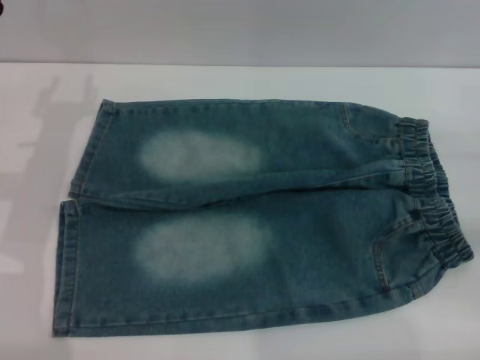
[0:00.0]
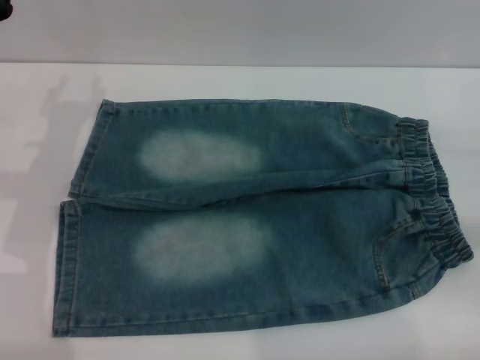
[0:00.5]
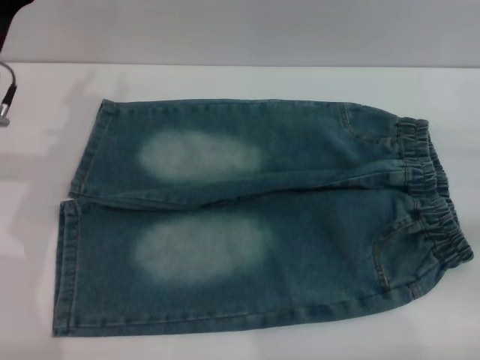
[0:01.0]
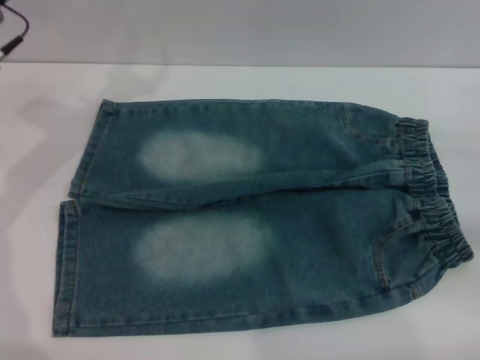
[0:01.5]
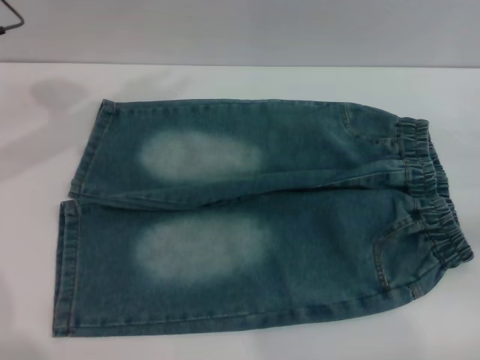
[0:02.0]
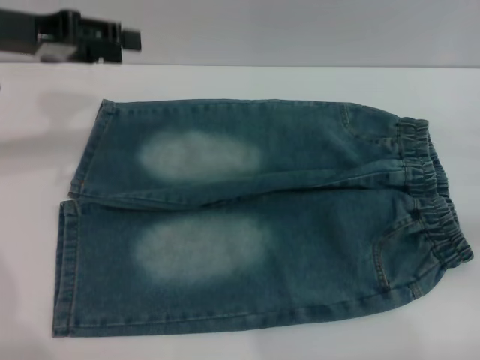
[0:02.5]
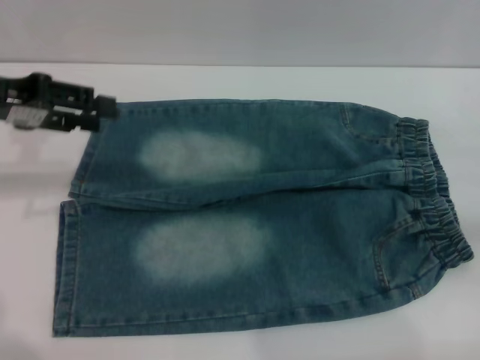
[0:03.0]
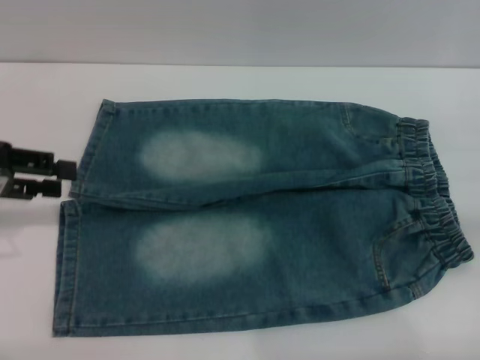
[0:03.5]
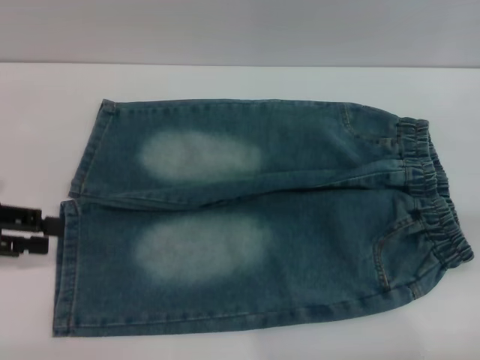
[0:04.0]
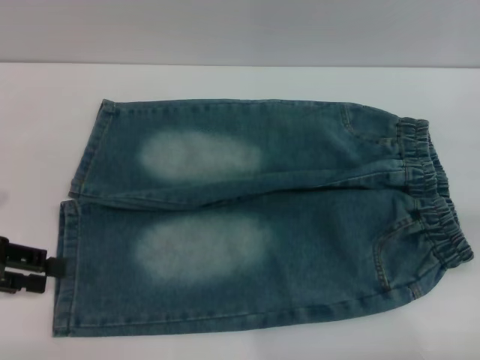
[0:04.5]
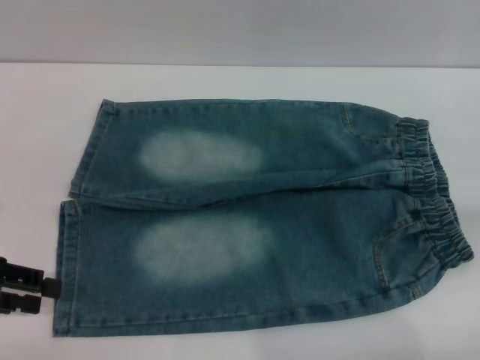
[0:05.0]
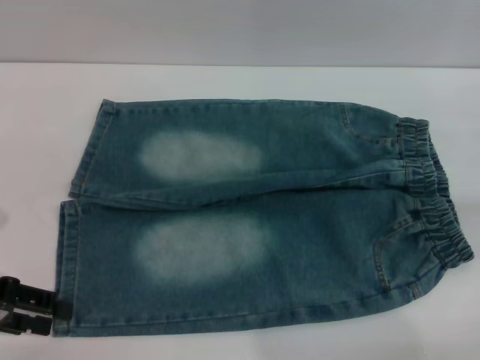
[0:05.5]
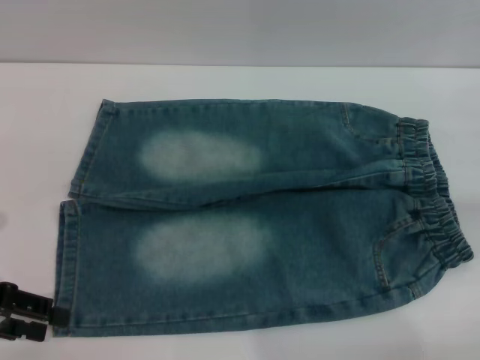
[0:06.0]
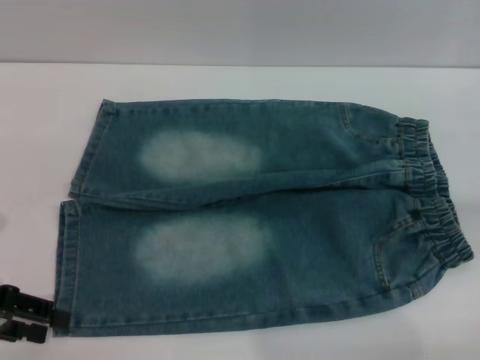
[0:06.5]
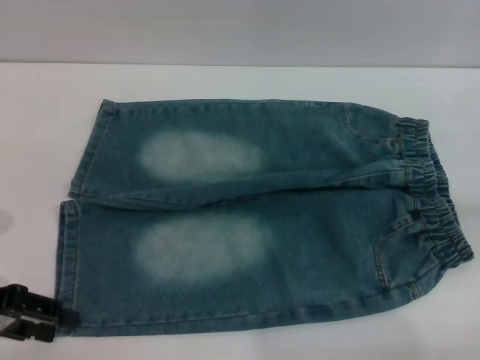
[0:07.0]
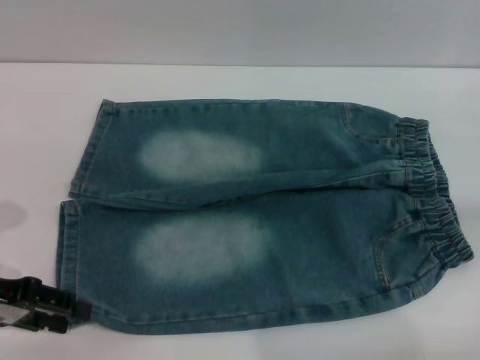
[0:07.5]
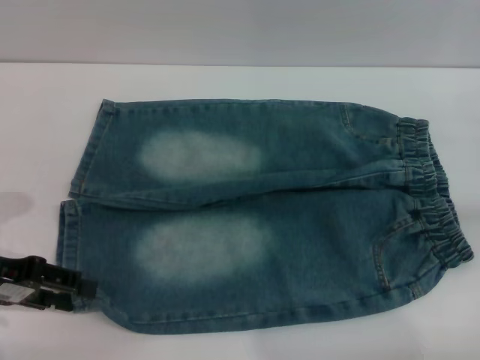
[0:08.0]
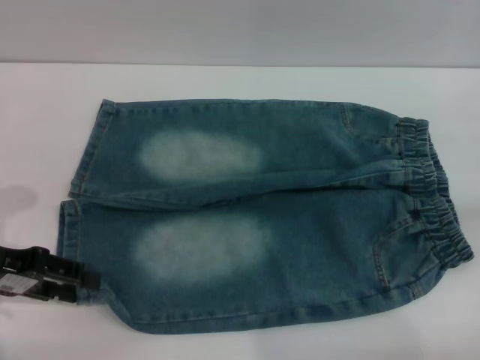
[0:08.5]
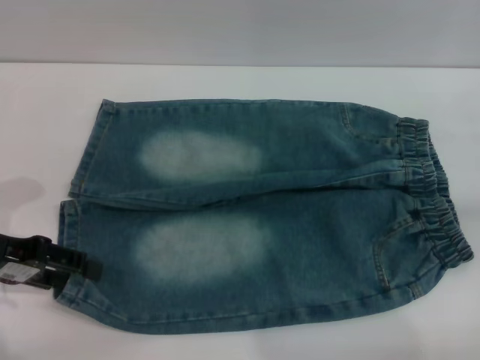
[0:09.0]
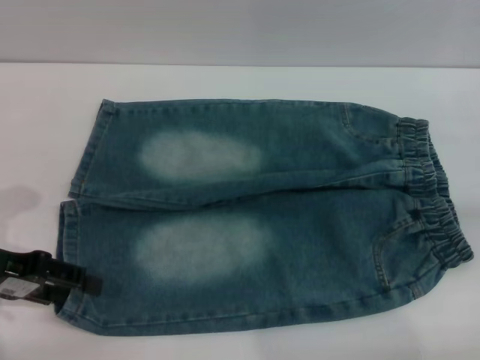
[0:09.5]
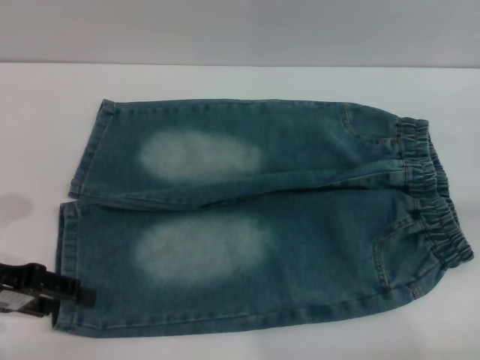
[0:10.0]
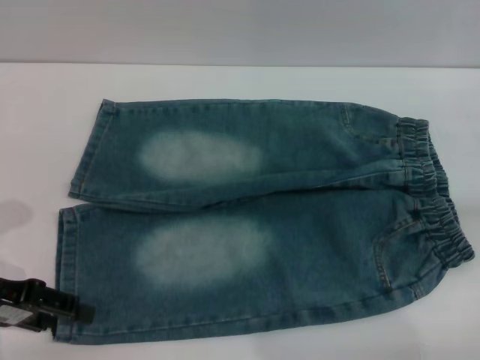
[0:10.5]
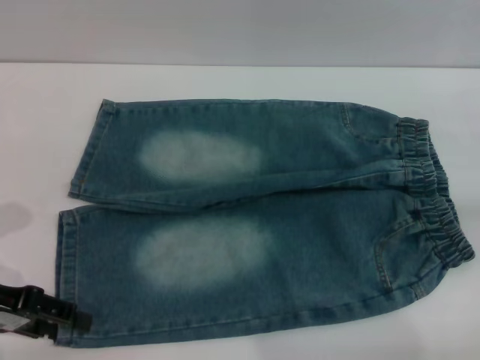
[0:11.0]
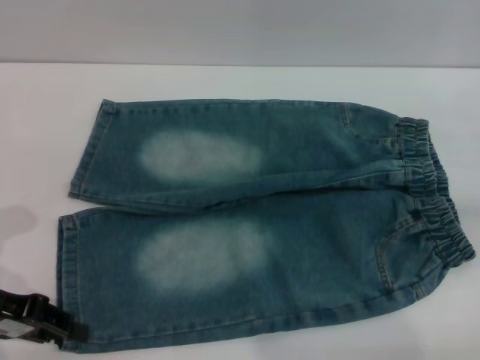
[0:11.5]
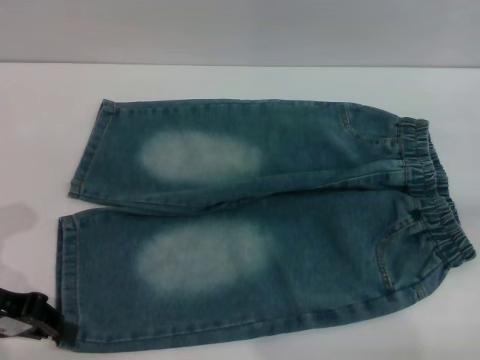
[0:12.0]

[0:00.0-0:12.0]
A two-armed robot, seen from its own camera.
0:02.0 to 0:04.0: The left gripper moves backward, to the left and downward, about 20 cm.
0:04.0 to 0:06.0: The left gripper changes place by approximately 5 cm.
0:06.0 to 0:10.0: There are only small adjustments of the grippers.
0:10.0 to 0:12.0: The left gripper closes up.

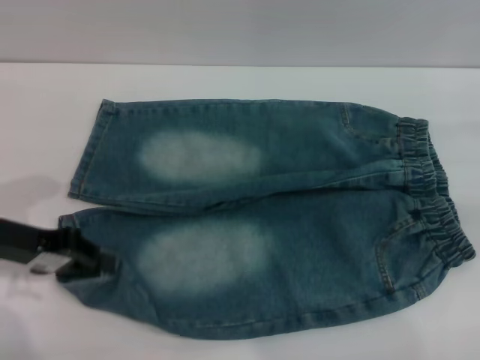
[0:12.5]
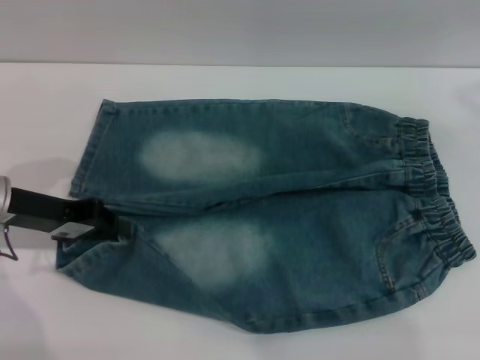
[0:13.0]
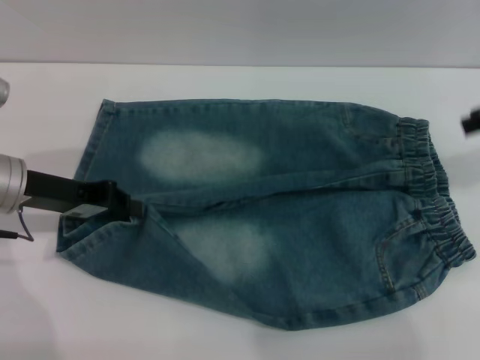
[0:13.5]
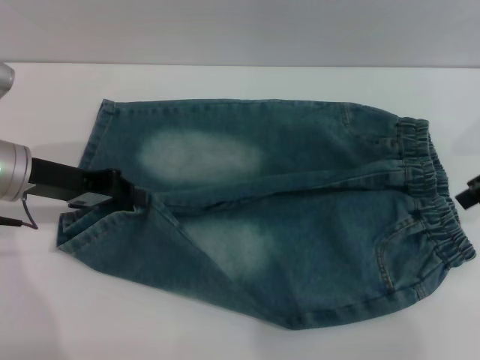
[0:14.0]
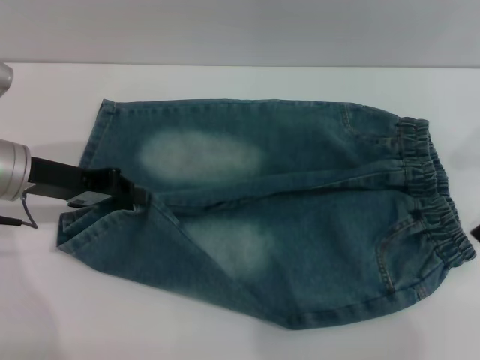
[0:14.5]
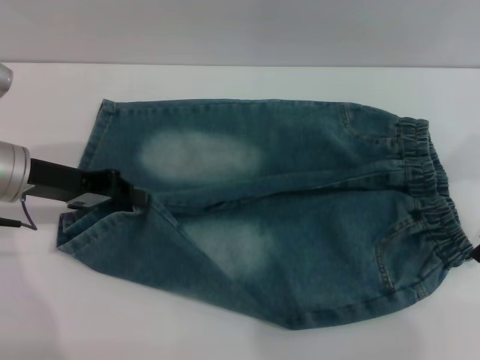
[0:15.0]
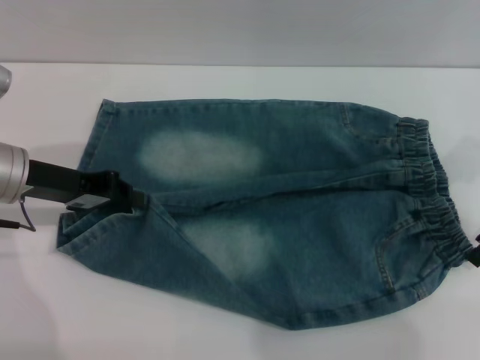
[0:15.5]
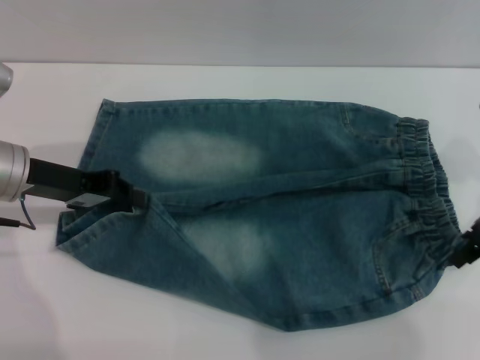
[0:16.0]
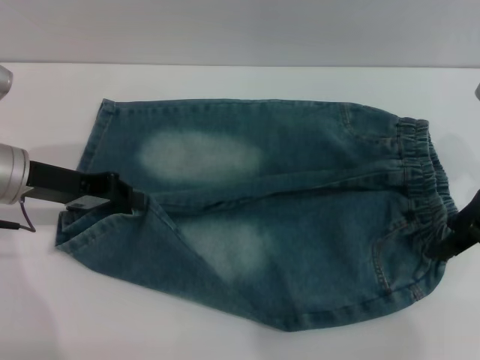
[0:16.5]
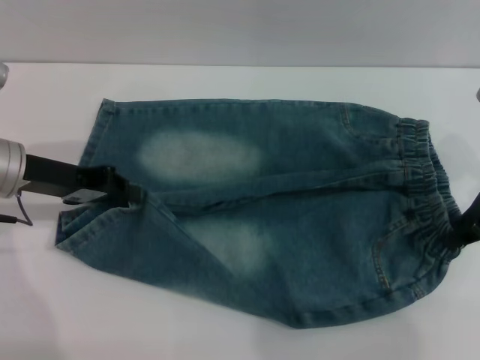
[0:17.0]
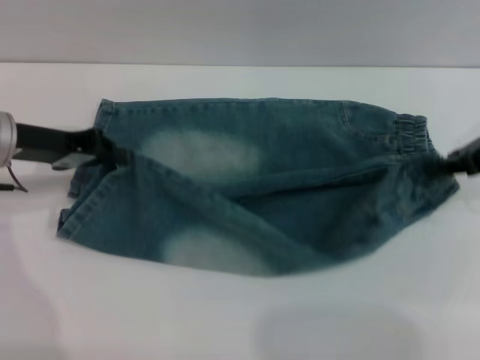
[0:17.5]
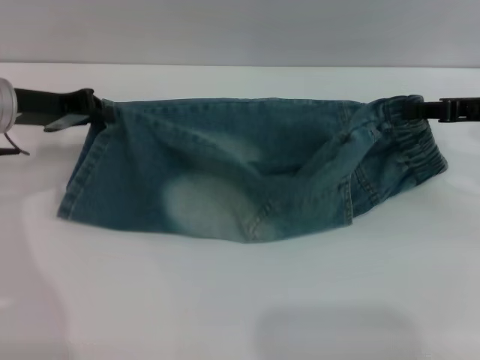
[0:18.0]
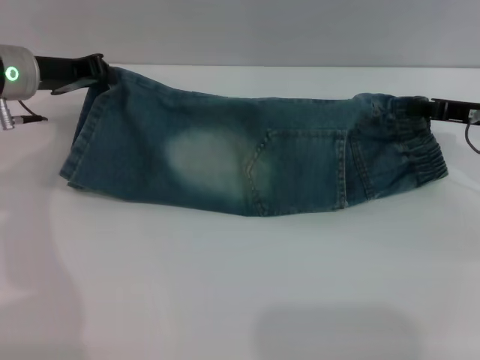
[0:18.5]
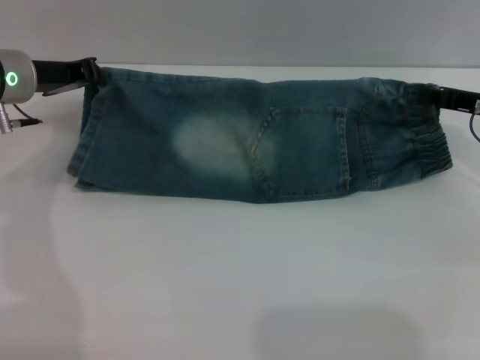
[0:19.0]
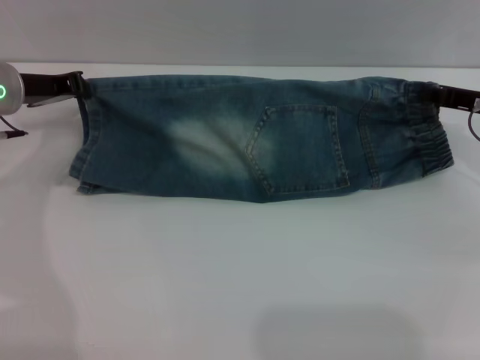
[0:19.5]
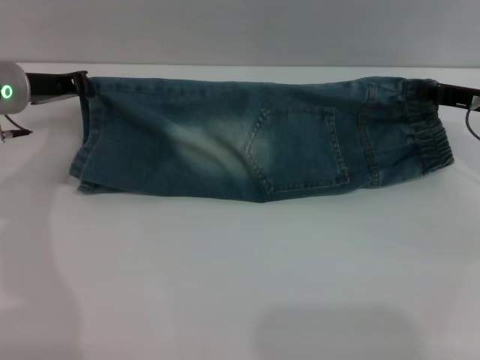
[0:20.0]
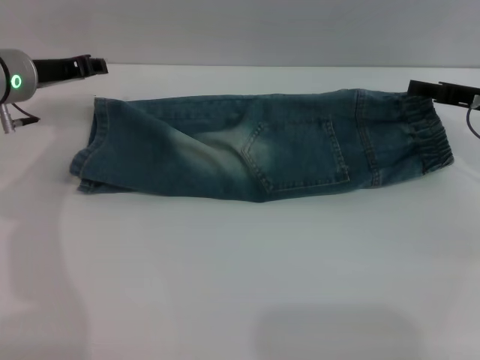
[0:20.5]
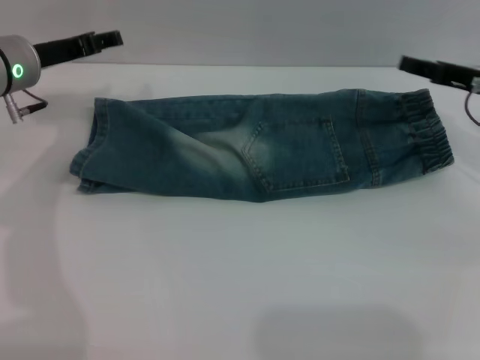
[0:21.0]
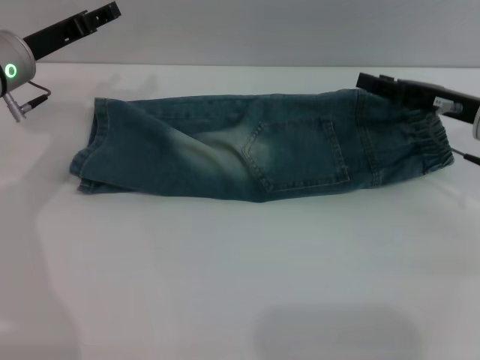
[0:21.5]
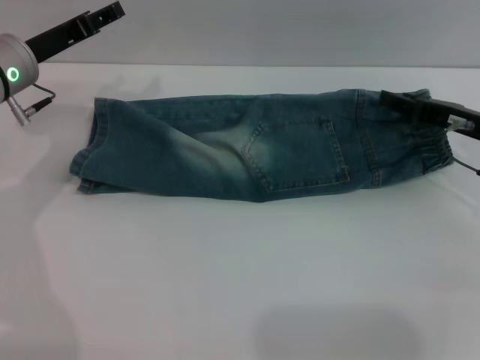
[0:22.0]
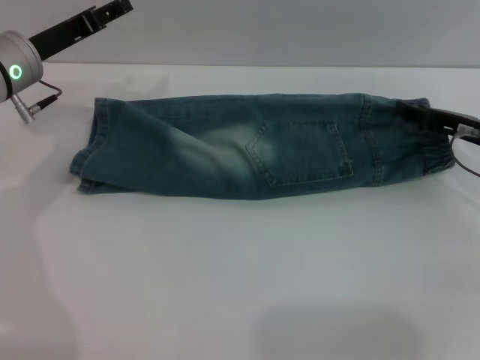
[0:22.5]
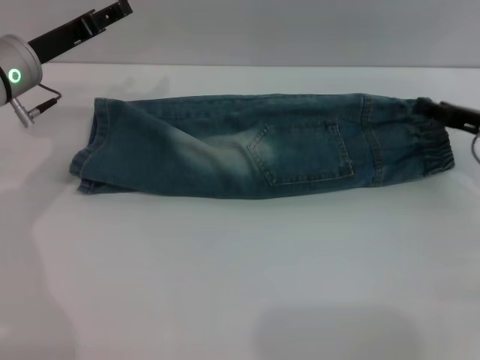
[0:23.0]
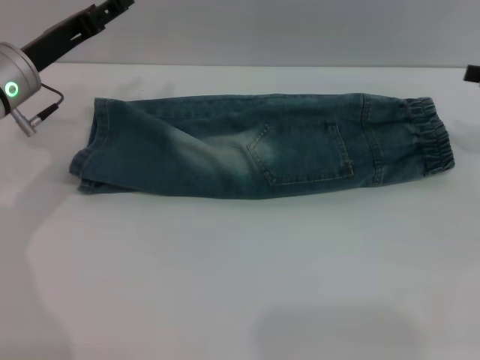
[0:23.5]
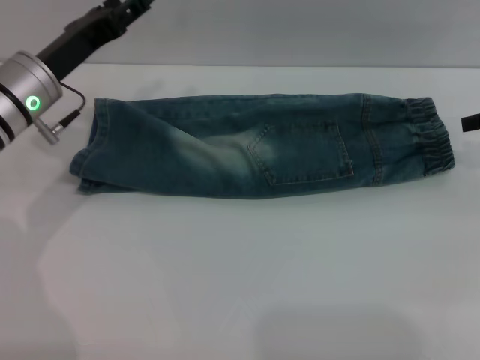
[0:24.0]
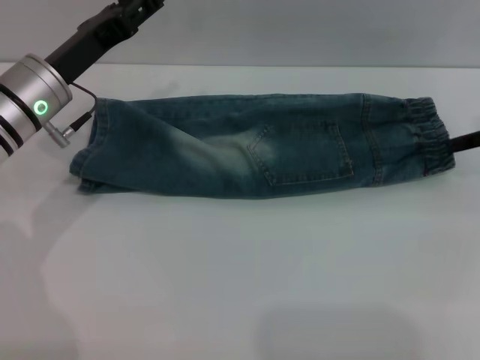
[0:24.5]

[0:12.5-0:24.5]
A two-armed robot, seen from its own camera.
Step, 0:12.5 to 0:21.0: Fold the bottom of the pants upward with both grippers.
0:12.5 to 0:14.5: The left gripper shifts by approximately 5 cm. The right gripper travels to the left by about 10 cm.
0:14.5 to 0:16.5: The grippers make only small movements.
0:16.5 to 0:18.5: The right gripper ends up some 5 cm from where it was, and closes. The left gripper is displaced forward by roughly 10 cm.
0:18.5 to 0:20.5: The right gripper opens its fingers.
0:20.5 to 0:22.5: The left gripper opens its fingers.
0:22.5 to 0:24.5: The right gripper travels upward by approximately 10 cm, while the left gripper changes place by roughly 5 cm.

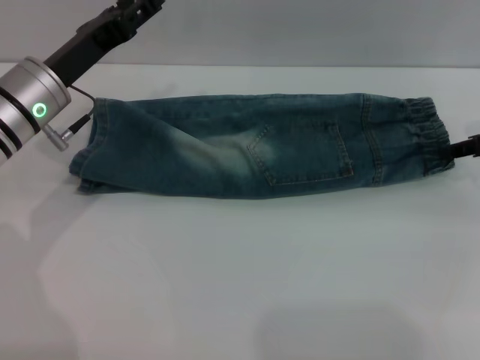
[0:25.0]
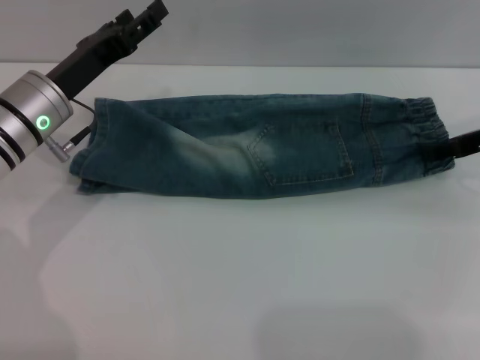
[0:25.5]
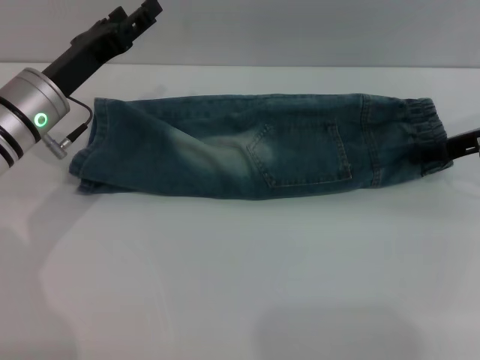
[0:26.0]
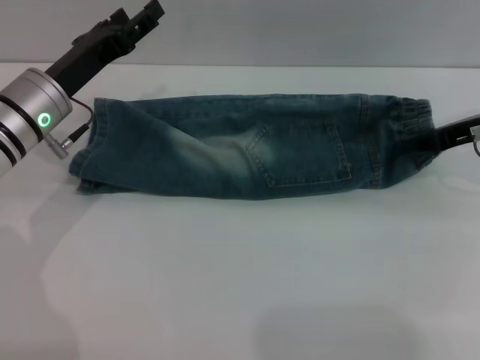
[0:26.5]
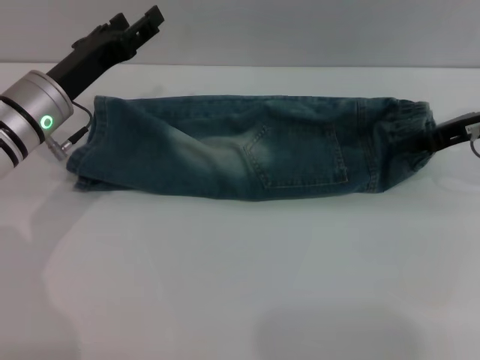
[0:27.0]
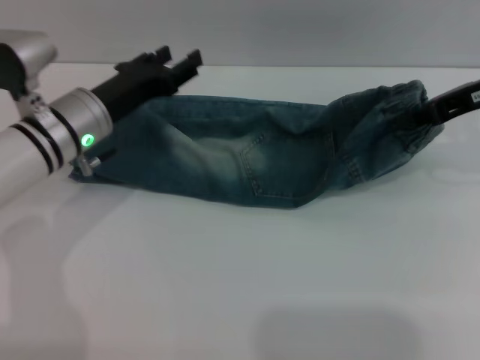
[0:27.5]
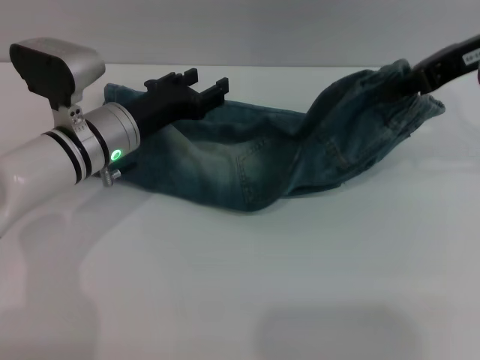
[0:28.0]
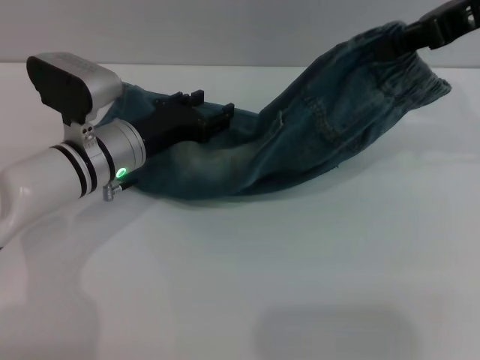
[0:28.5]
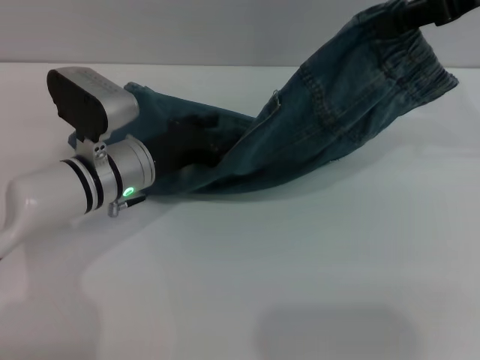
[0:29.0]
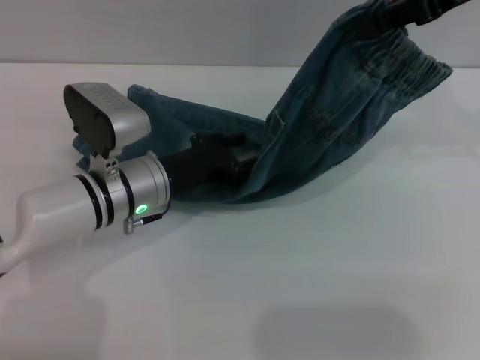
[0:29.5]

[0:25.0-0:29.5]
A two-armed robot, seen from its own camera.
0:25.0 to 0:27.0: The right gripper closes.
0:27.0 to 0:29.5: The left gripper goes approximately 10 cm to the right and downward. The right gripper is displaced upward by some 15 cm.
